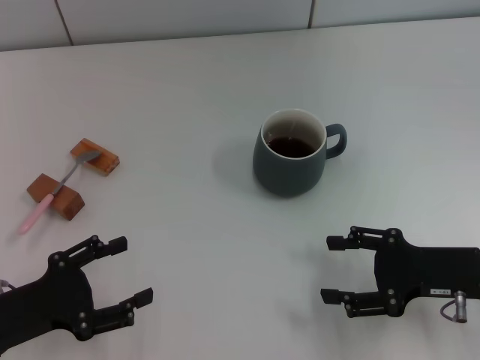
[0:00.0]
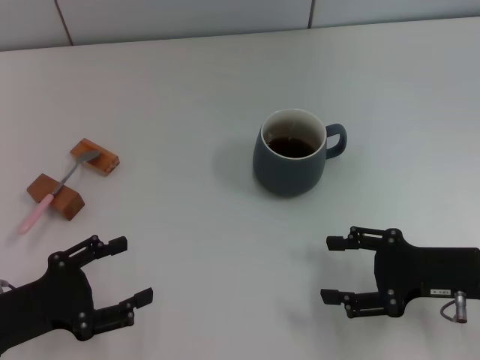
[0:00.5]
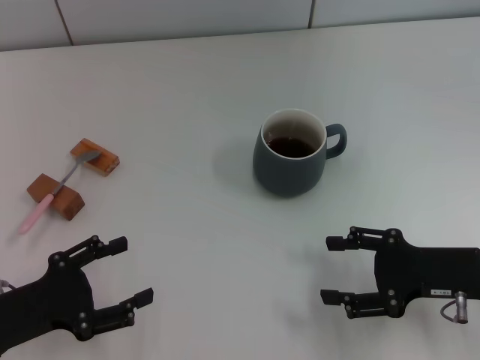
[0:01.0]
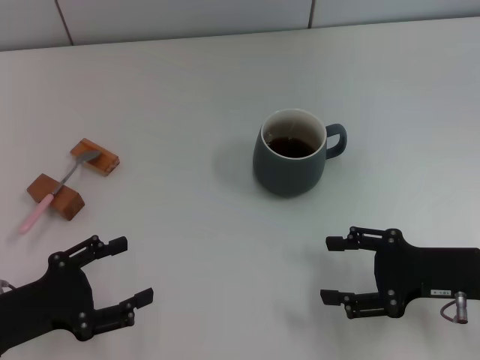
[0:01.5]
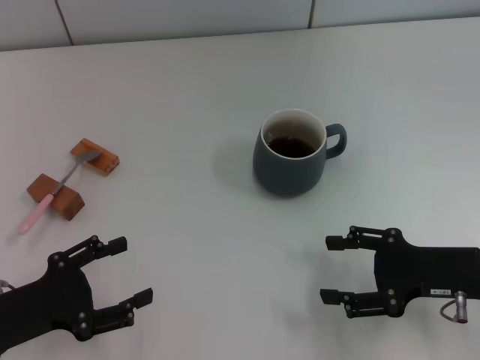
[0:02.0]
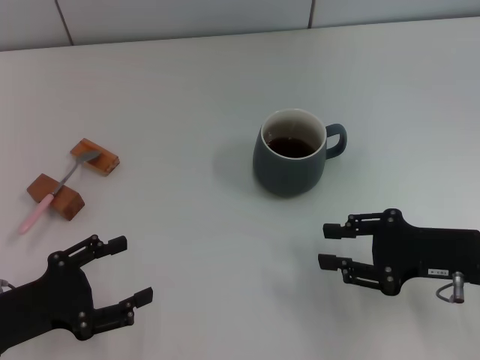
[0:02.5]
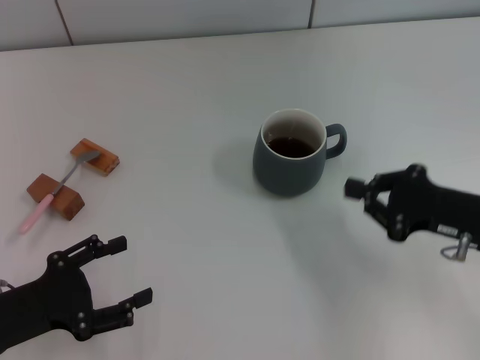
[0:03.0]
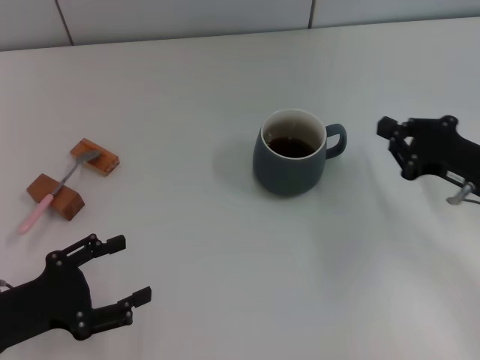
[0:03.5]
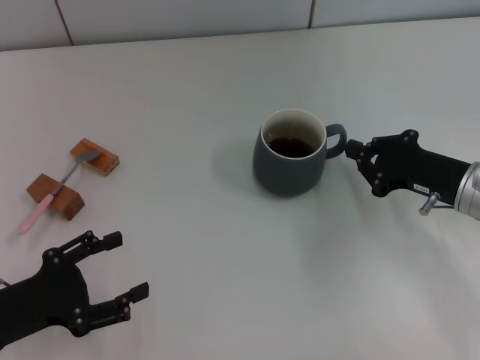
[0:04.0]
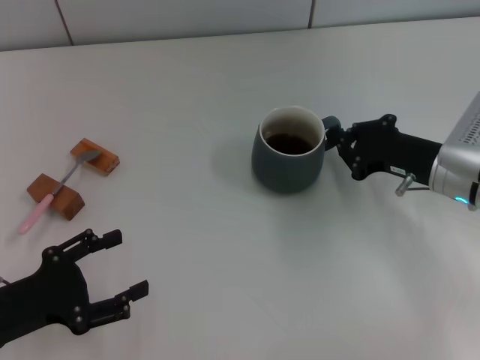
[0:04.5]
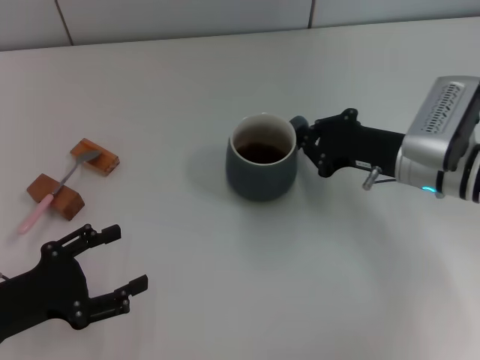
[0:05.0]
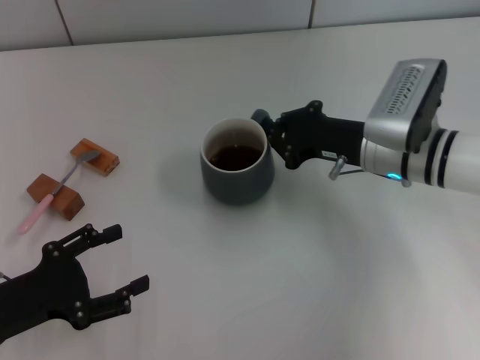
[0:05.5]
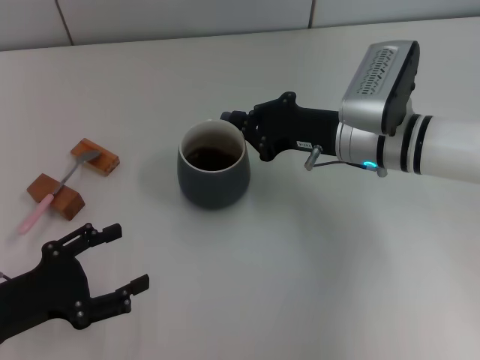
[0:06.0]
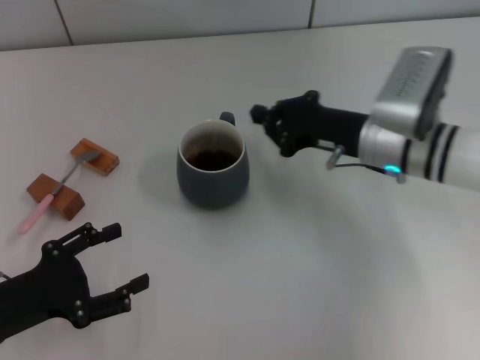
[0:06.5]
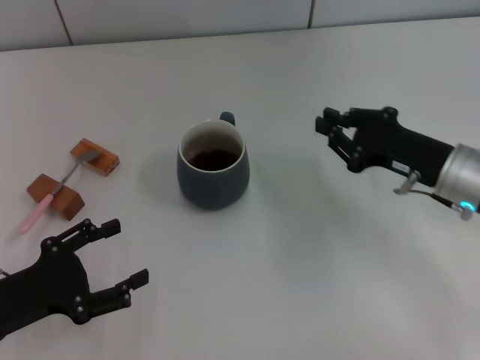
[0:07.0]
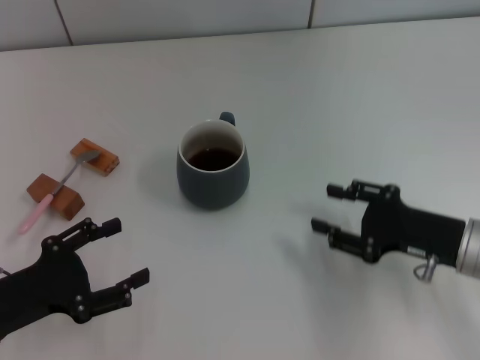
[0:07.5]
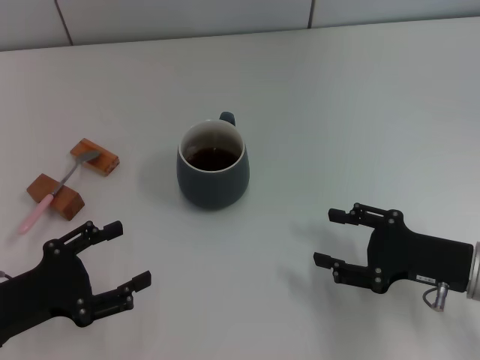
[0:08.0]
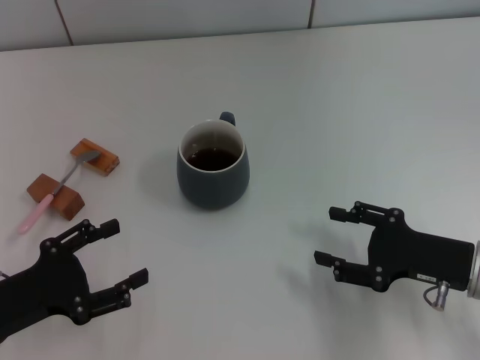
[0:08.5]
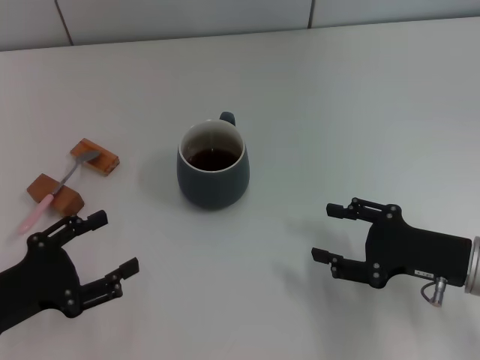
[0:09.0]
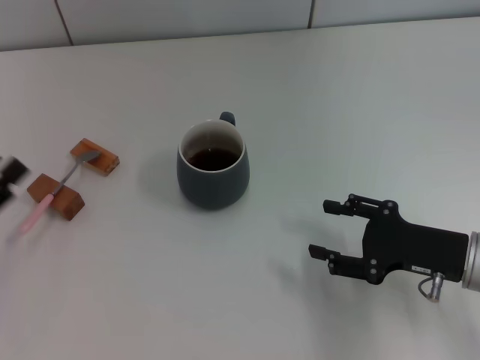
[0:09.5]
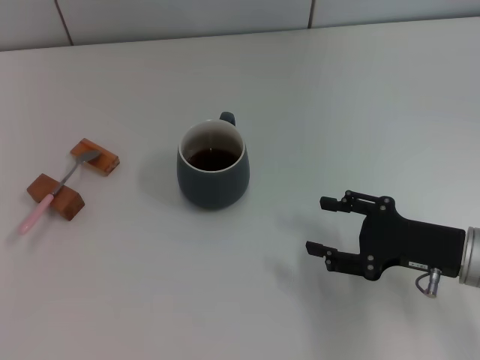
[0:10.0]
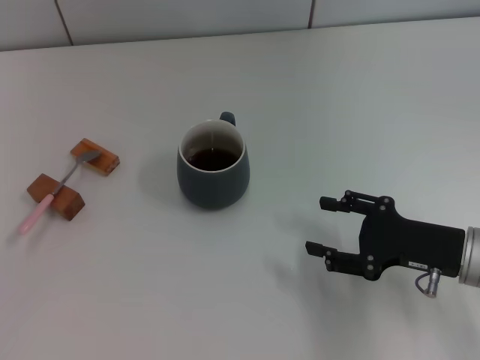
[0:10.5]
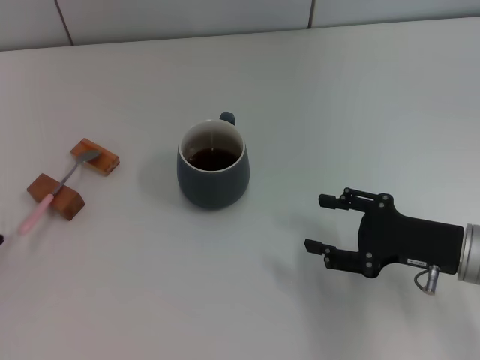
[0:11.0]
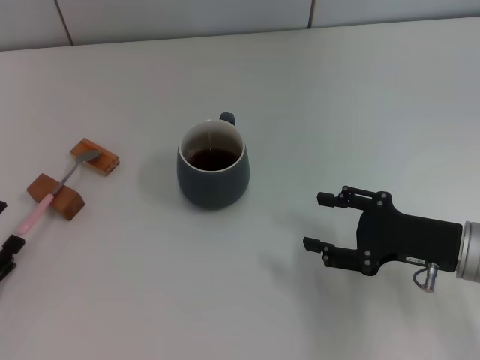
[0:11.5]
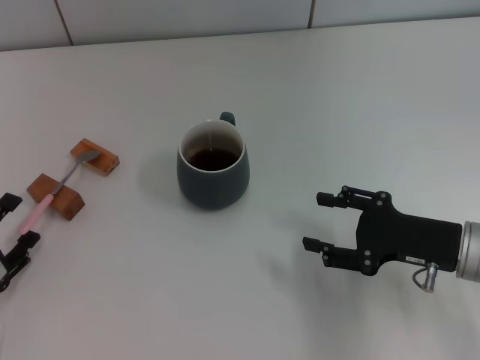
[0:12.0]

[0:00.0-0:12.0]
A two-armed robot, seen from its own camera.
Task of the whole recording: Move the grey cup to the center, lift the pink spoon, stir it three times in the cup, and put the spoon into the cup.
Step, 0:00.0 to 0:06.0: Move the cup with coffee to the center of view with the right gripper.
0:00.0 to 0:02.0: The two grippers keep their place.
0:02.0 to 0:04.0: The right gripper heads forward, covering roughly 5 cm, and closes.
0:04.0 to 0:06.0: The right gripper shifts roughly 15 cm to the left and forward.
0:06.0 to 0:08.0: The right gripper shifts about 20 cm backward and to the right, and opens.
0:08.0 to 0:10.0: The left gripper goes some 5 cm to the left.
0:10.0 to 0:12.0: The left gripper goes approximately 5 cm downward.

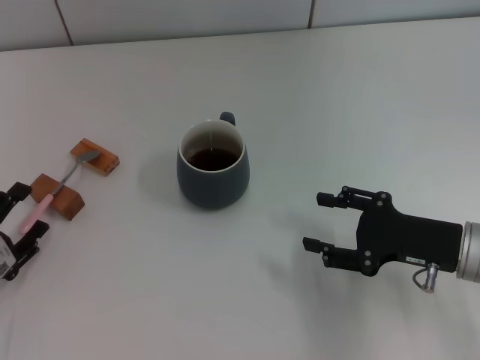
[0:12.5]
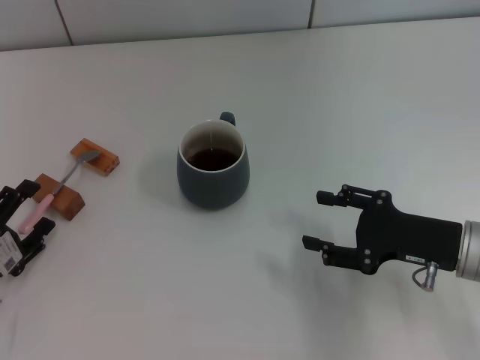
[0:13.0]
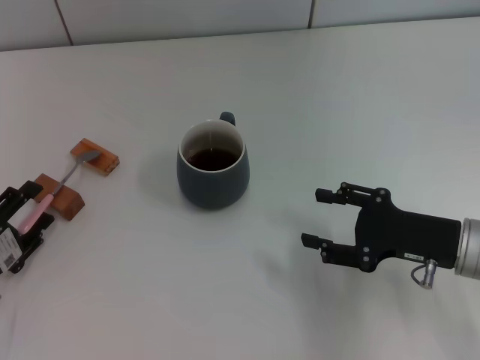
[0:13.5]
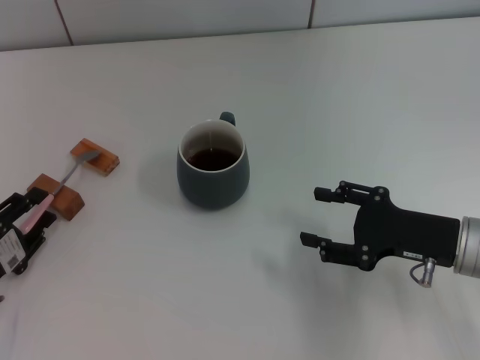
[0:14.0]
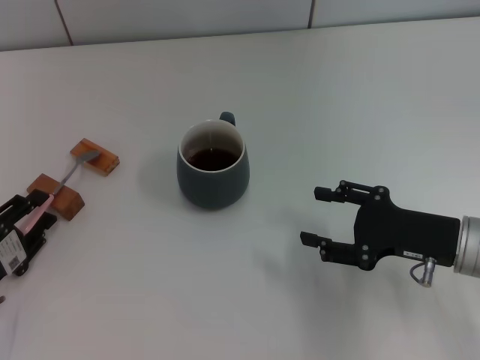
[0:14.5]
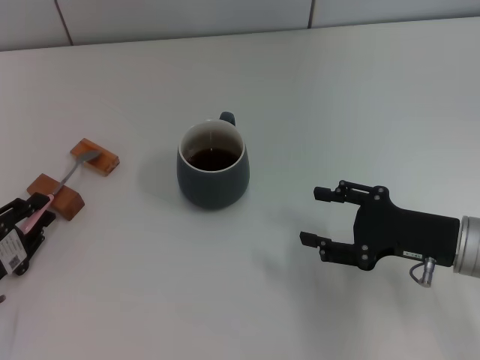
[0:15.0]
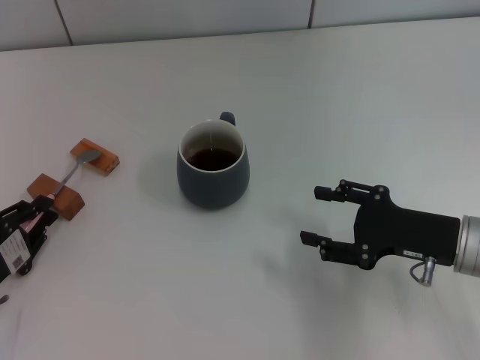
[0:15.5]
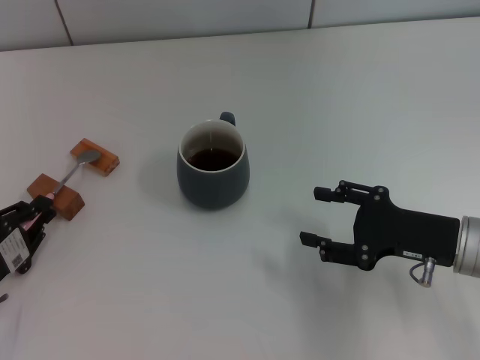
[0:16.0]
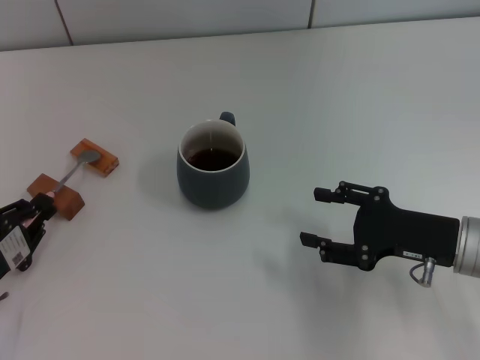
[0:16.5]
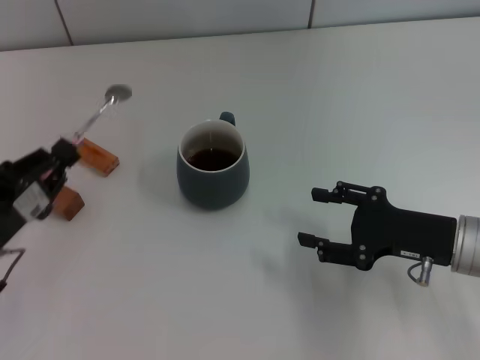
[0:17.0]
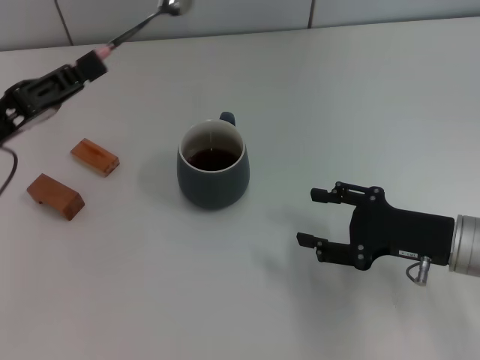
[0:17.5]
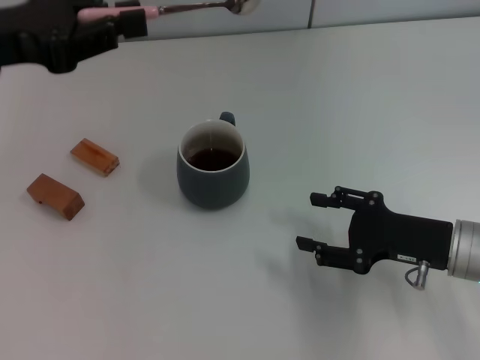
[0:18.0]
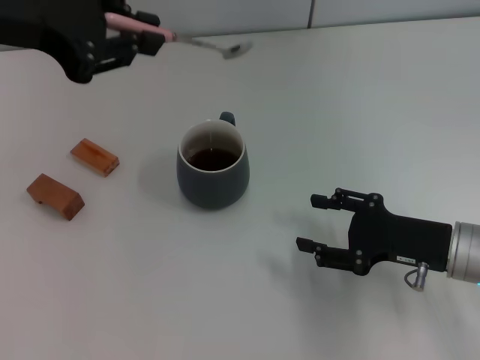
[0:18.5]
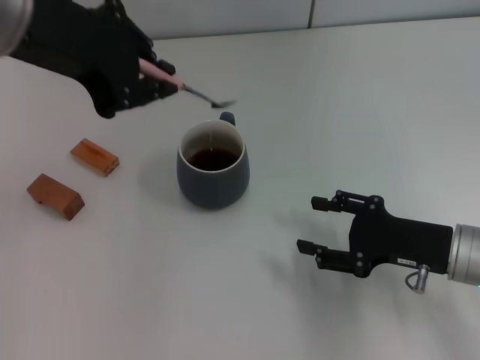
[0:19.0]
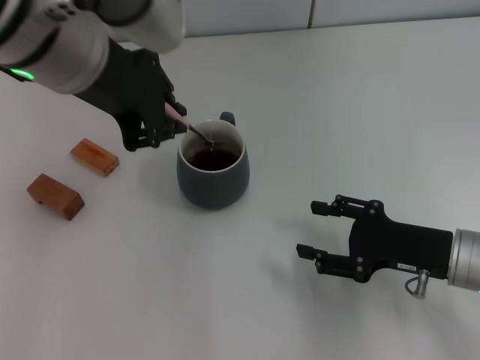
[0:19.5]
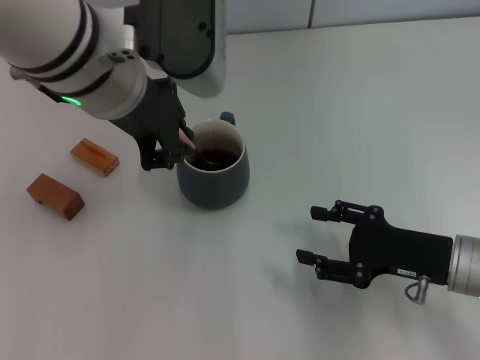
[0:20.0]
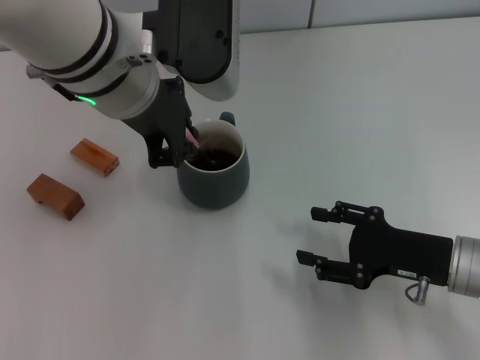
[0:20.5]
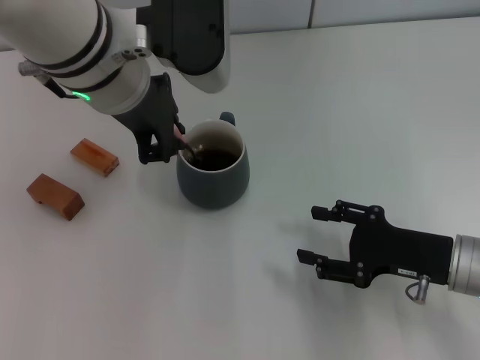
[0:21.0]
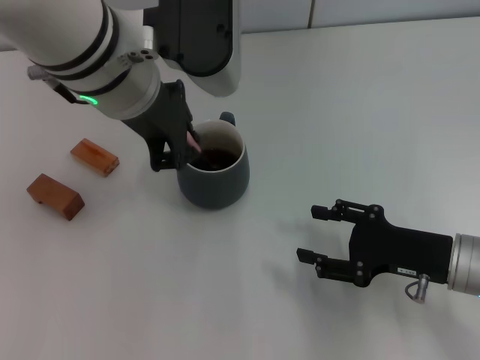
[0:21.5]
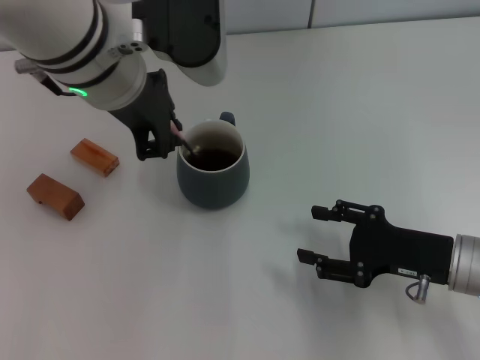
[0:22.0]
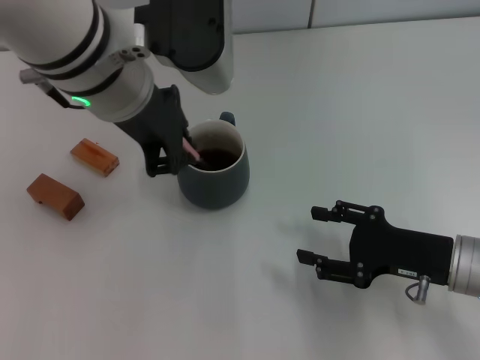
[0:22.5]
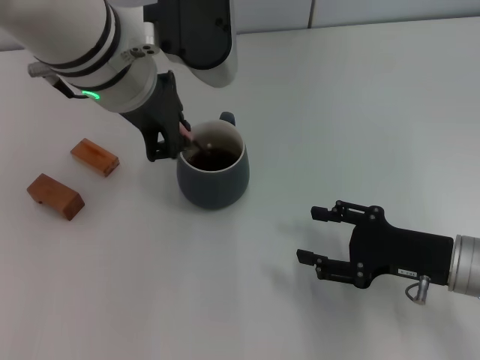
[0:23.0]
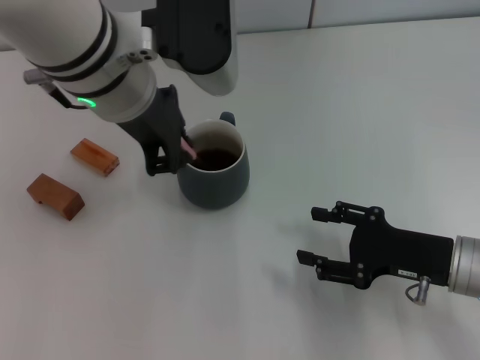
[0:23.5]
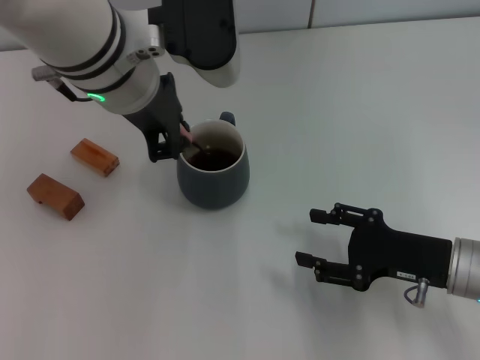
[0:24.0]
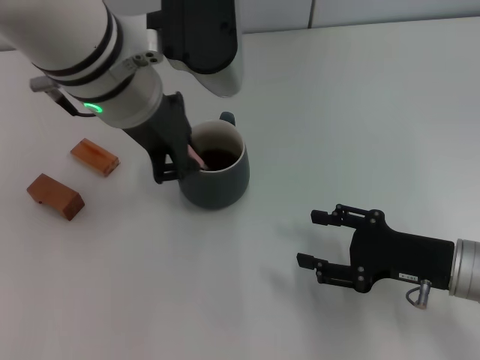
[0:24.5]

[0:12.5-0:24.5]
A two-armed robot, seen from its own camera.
Task of the whole recording: Move the grey cup to the center, lift the pink spoon, stir it three times in the cup, and put the spoon into the cup.
Step, 0:12.5 to 0:16.5: Pick up the spoon with the left gripper.
0:12.5 to 0:14.5: The grippers stay close to where they were, moving slightly.
0:14.5 to 0:16.5: The left gripper closes up.
0:16.5 to 0:18.5: The left gripper goes roughly 35 cm upward and forward.
0:18.5 to 0:20.5: The left gripper goes approximately 15 cm to the right and downward.
0:20.5 to 0:24.5: The grippers stay close to where they were, moving slightly.

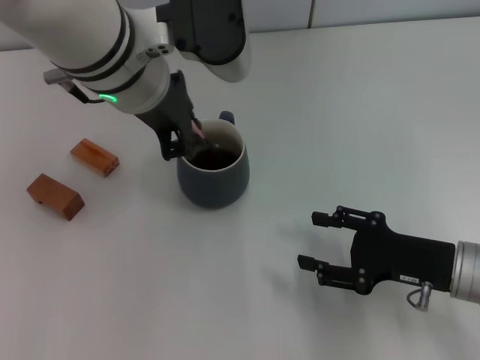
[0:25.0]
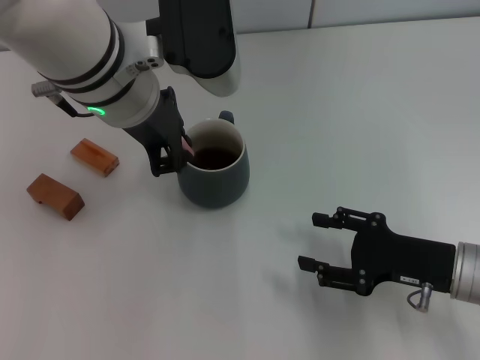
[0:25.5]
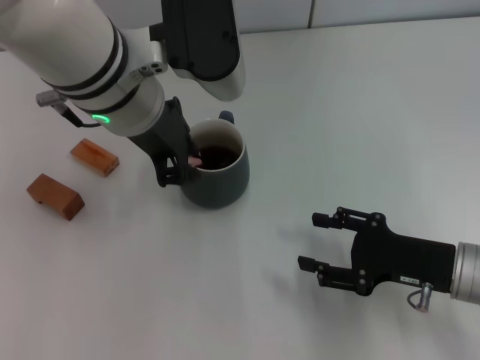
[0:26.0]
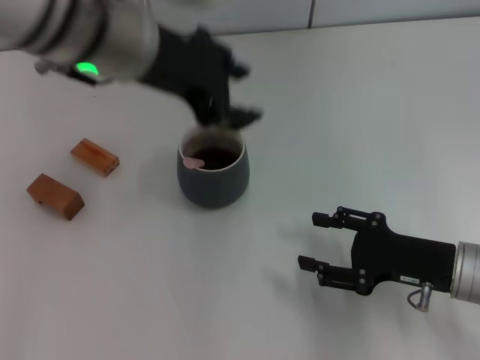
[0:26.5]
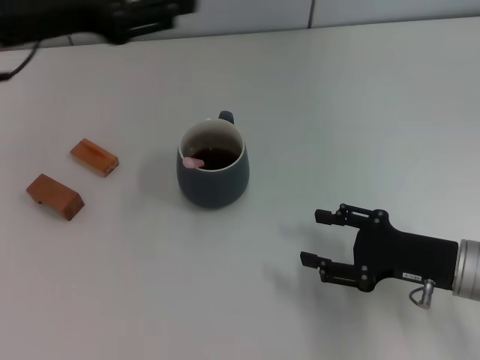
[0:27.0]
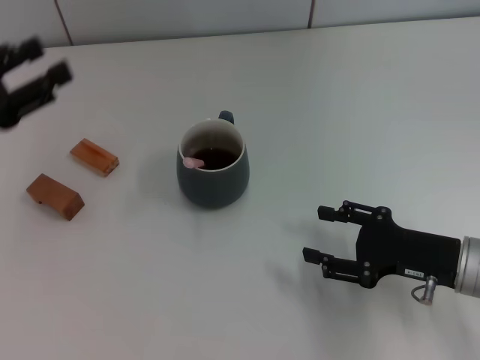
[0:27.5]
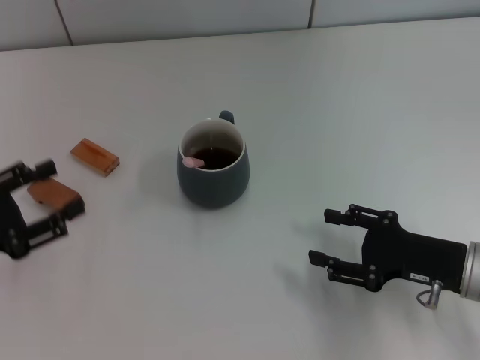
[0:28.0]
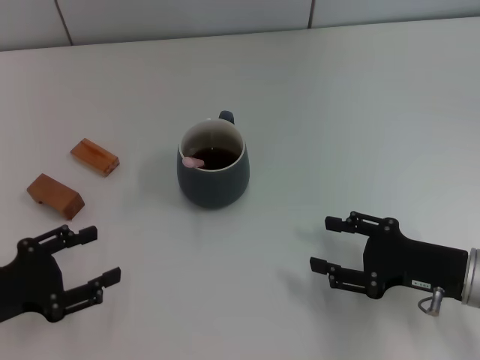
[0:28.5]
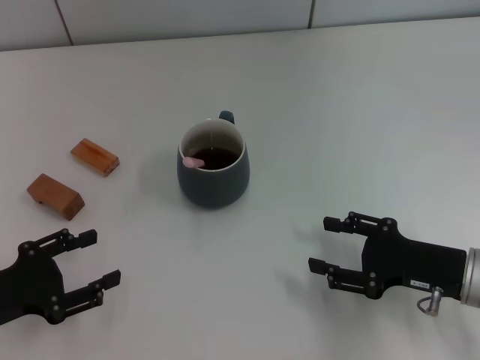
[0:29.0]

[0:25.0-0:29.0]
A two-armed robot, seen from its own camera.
Task of the whole recording: Move the grey cup to the center, lift the pink spoon, stir it three times in the cup, and put the spoon into the cup.
0:25.0 to 0:27.0: The left gripper shifts some 10 cm to the left, and opens.
0:27.0 to 0:29.0: The left gripper moves downward, backward and to the left, about 30 cm.
